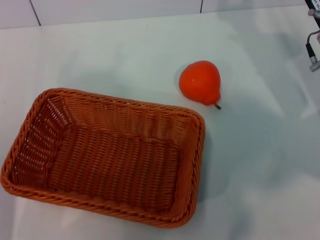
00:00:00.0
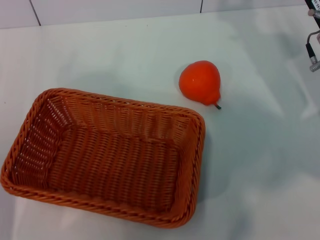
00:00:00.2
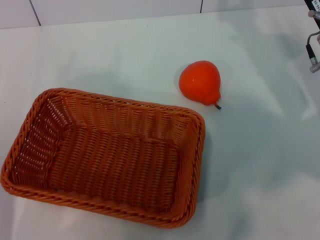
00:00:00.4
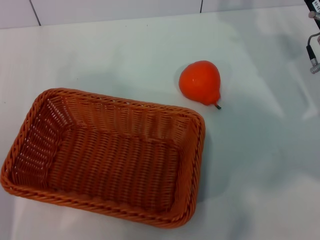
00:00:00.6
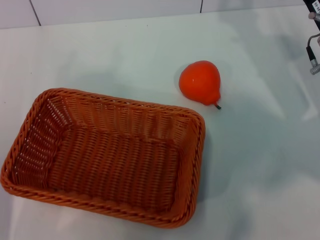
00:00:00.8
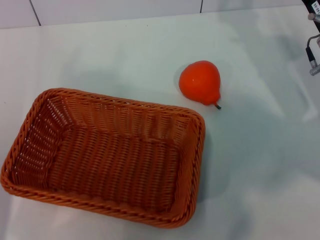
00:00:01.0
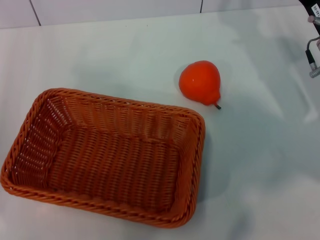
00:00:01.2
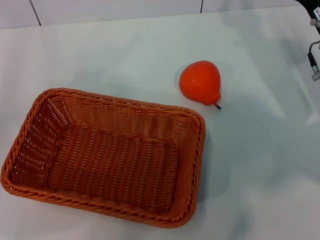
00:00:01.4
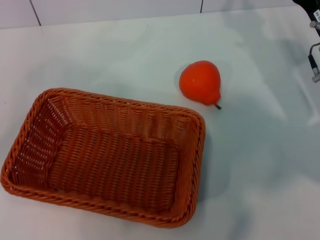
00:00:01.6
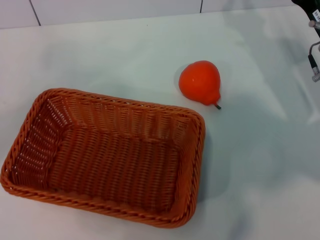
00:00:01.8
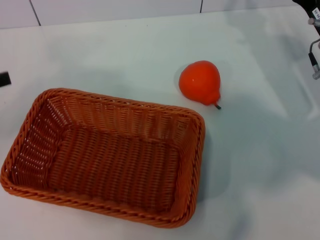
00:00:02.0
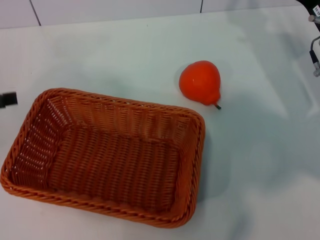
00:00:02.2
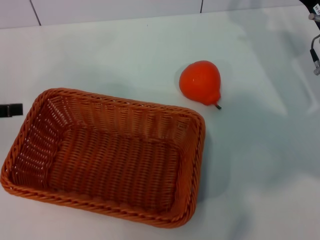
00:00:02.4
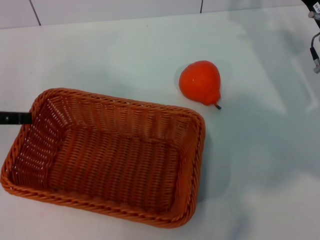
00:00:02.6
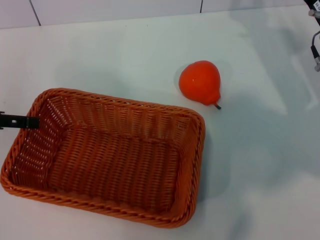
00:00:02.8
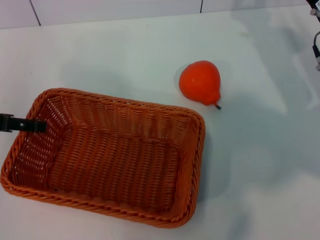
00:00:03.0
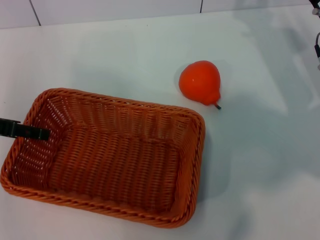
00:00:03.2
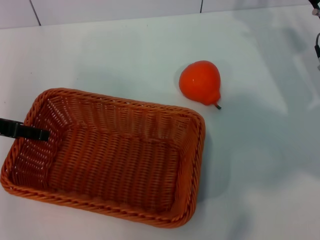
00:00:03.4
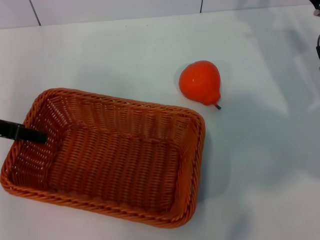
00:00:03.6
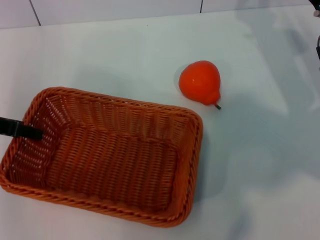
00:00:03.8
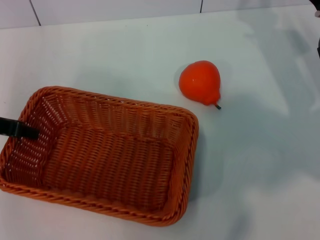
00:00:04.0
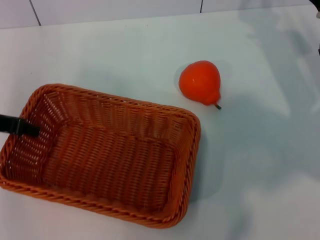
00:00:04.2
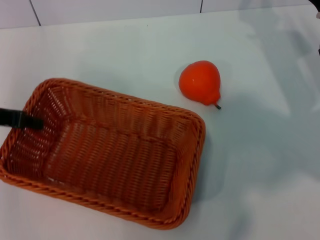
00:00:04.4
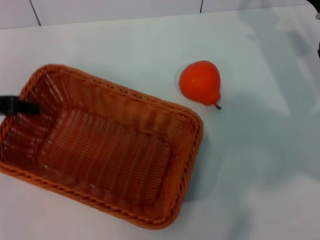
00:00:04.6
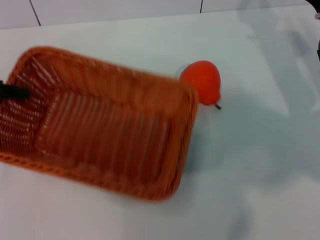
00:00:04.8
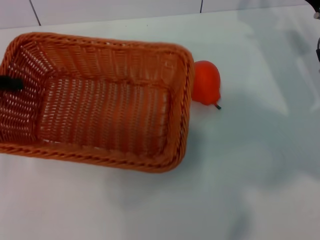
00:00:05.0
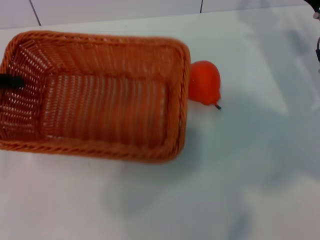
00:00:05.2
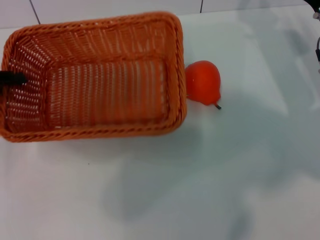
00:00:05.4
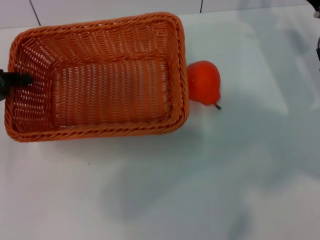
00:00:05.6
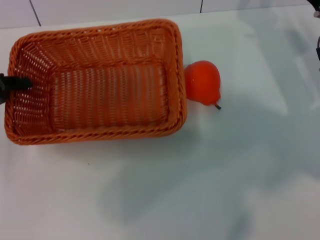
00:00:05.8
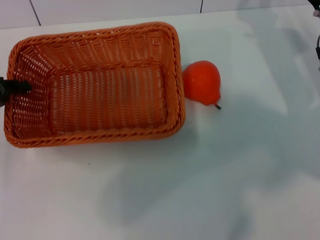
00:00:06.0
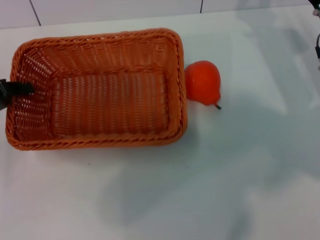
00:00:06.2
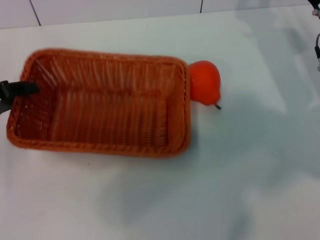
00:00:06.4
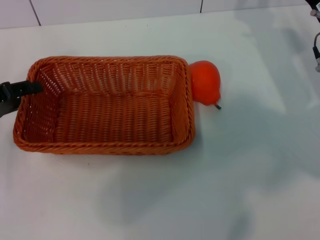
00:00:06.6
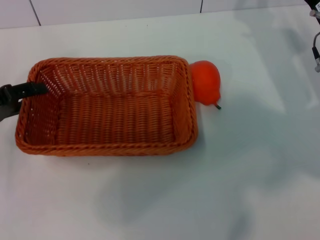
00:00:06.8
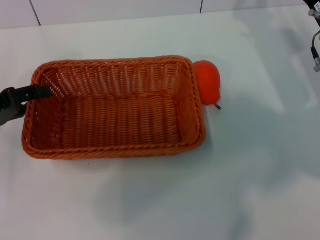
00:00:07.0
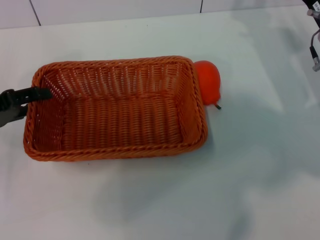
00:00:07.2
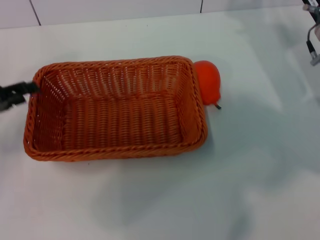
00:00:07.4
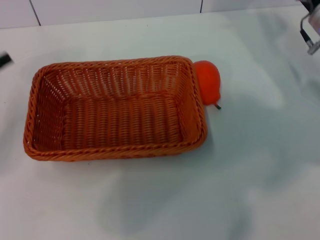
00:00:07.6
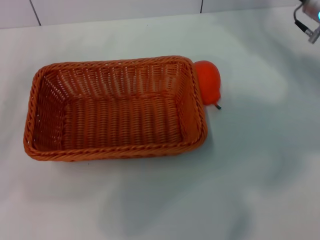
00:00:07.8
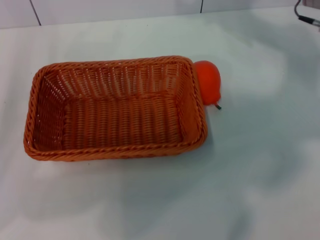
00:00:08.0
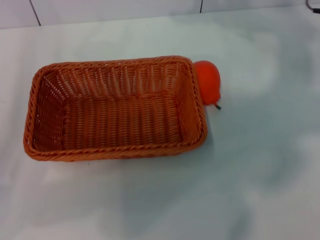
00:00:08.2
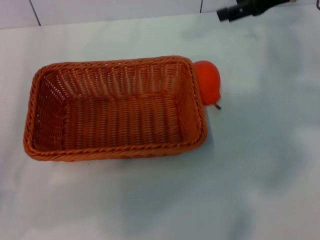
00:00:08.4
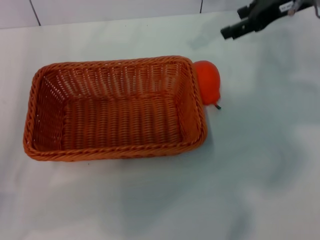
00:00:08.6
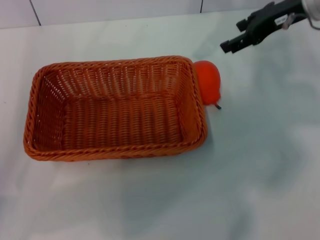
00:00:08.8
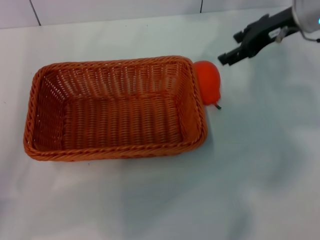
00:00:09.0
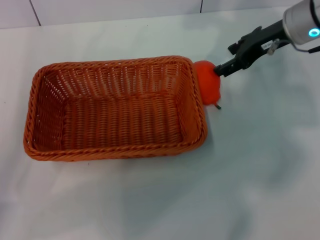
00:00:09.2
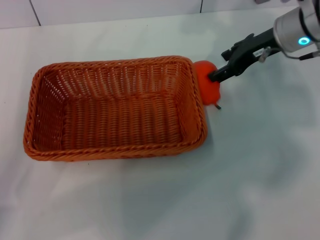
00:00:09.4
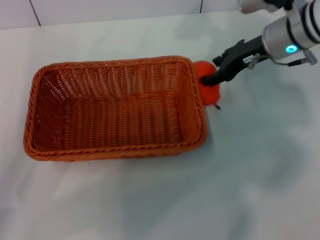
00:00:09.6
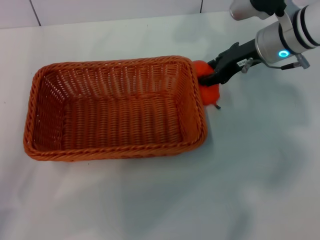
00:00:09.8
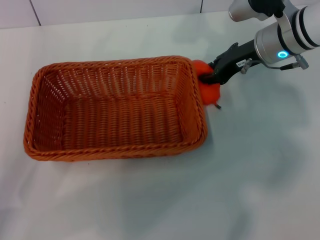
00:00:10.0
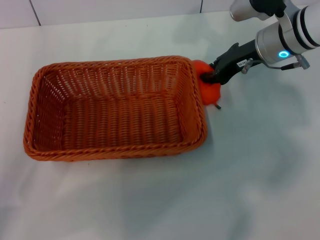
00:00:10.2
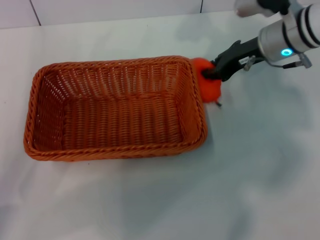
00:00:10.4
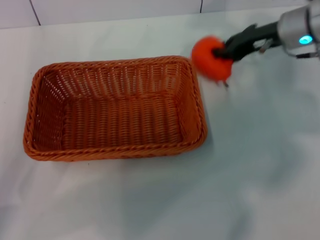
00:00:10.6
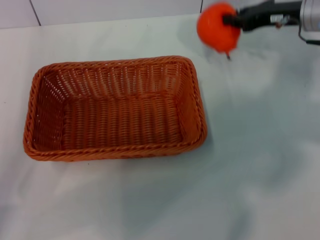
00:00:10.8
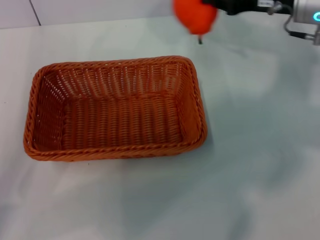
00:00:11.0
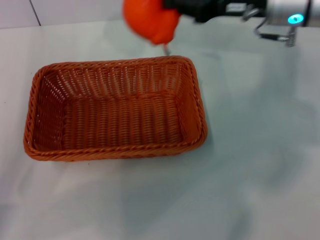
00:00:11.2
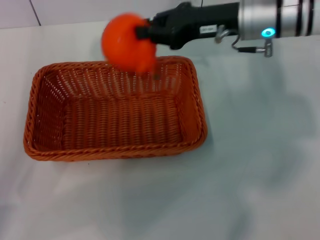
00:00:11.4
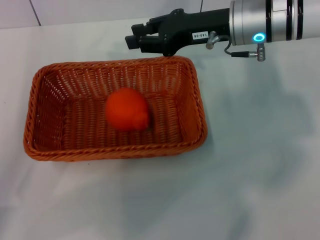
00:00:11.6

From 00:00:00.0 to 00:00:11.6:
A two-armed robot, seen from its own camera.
Task of the whole recording: the left gripper pick up the yellow basket and place it horizontally in the middle of the table, the right gripper pick up the orange and place it into the yellow basket.
Step, from 00:00:00.0 to 00:00:04.2: Pick up the light basket with the left gripper.
Step, from 00:00:04.6 to 00:00:07.4: Place the light basket in the center of view with the left gripper.
Step, from 00:00:07.6 to 00:00:10.6: Pick up the orange with the right gripper.
From 00:00:00.0 to 00:00:01.4: The left gripper travels to the left by about 5 cm.
From 00:00:01.4 to 00:00:02.8: The left gripper heads forward and upward, covering approximately 10 cm.
From 00:00:02.8 to 00:00:04.4: The left gripper closes its fingers.
From 00:00:04.4 to 00:00:05.8: The left gripper is displaced downward by roughly 5 cm.
From 00:00:05.8 to 00:00:07.2: The left gripper opens its fingers.
From 00:00:07.2 to 00:00:08.8: The left gripper moves roughly 5 cm, while the right gripper heads upward, covering roughly 10 cm, and opens up.
From 00:00:08.8 to 00:00:10.2: The right gripper is displaced downward by about 5 cm, and closes its fingers.
From 00:00:10.2 to 00:00:11.6: The right gripper shifts by approximately 5 cm.

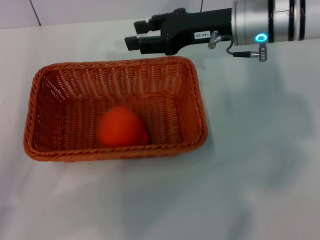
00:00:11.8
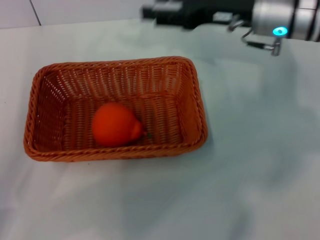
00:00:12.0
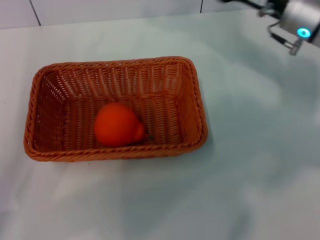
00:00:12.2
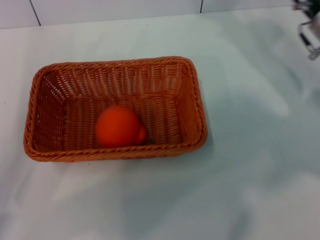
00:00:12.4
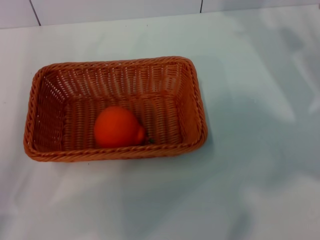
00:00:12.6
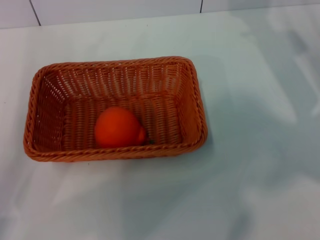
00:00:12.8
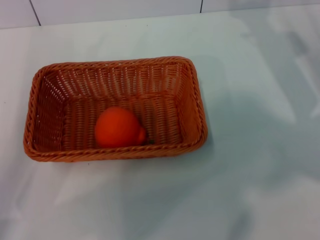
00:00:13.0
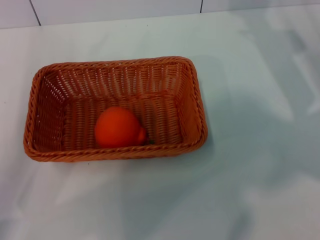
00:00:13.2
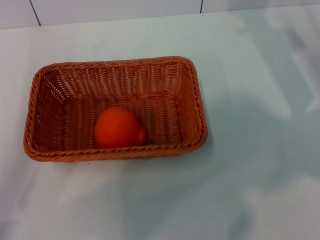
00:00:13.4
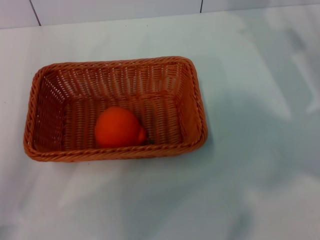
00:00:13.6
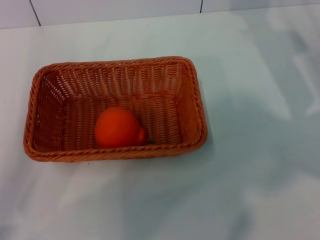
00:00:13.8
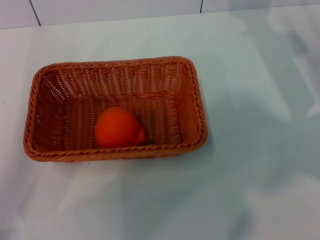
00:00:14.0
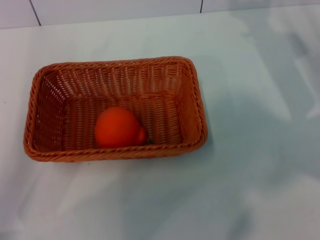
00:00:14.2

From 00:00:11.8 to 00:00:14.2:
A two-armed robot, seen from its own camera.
Task of the whole recording: the left gripper pick up the yellow basket and place it horizontally in the middle of the table, the right gripper pick up the orange and place it into the yellow basket.
From 00:00:11.8 to 00:00:13.0: The right gripper travels to the right and downward by approximately 15 cm, and opens up.
